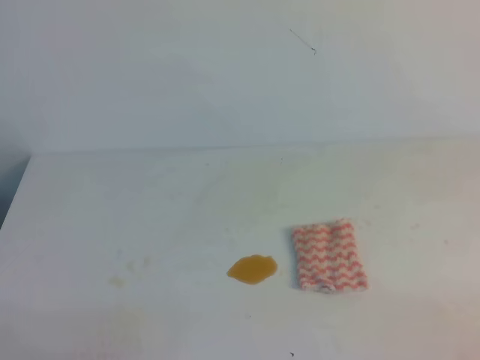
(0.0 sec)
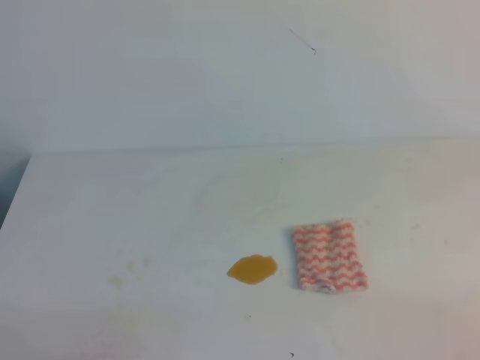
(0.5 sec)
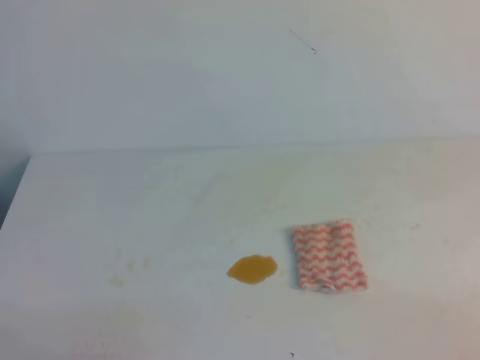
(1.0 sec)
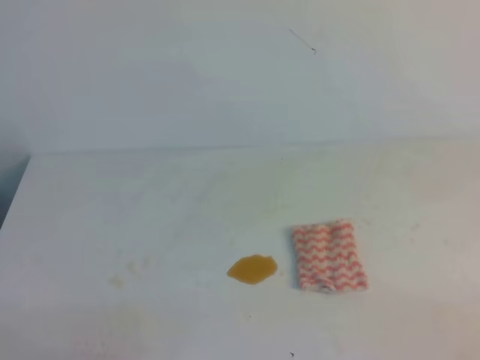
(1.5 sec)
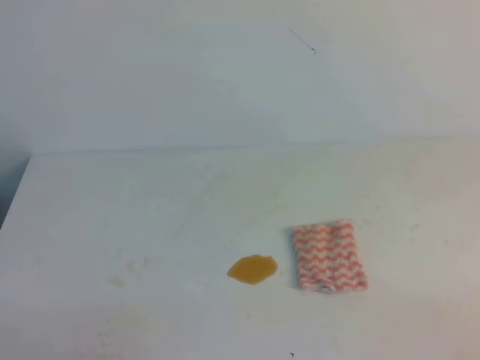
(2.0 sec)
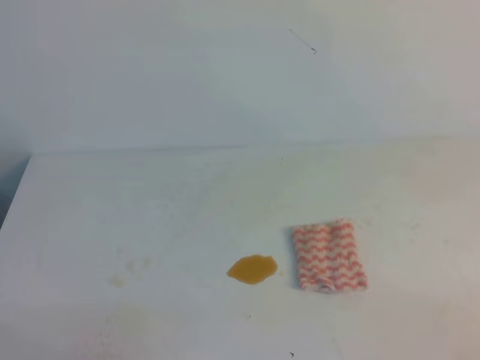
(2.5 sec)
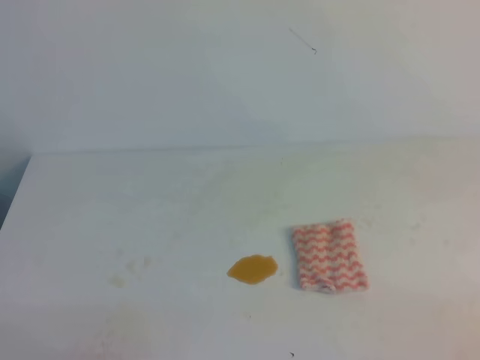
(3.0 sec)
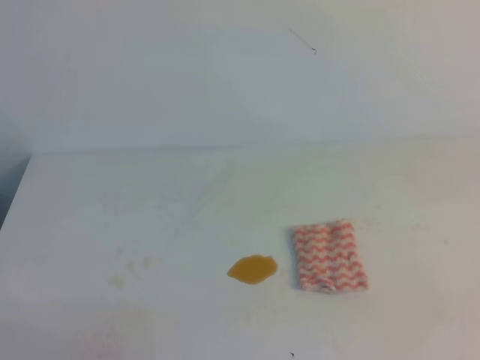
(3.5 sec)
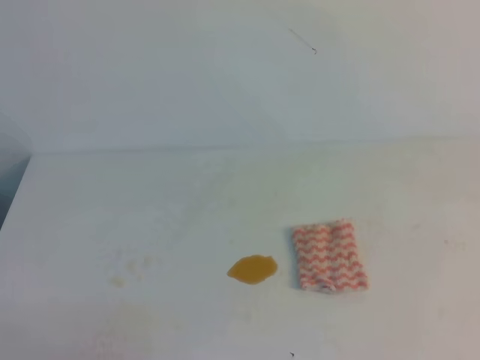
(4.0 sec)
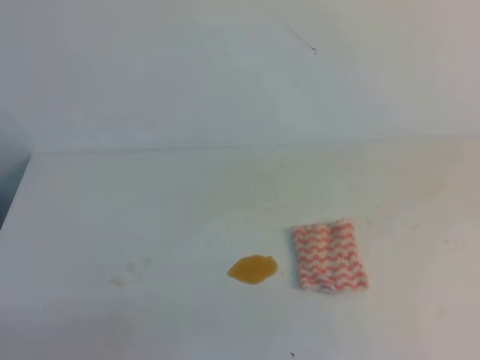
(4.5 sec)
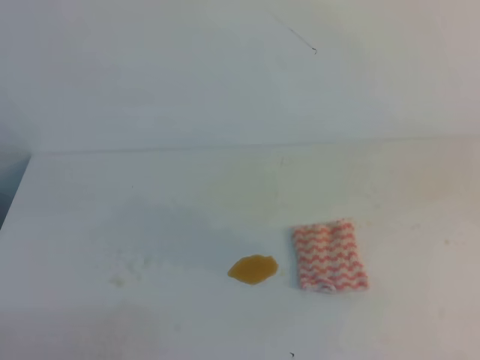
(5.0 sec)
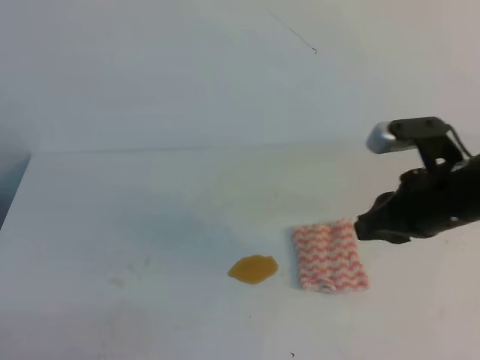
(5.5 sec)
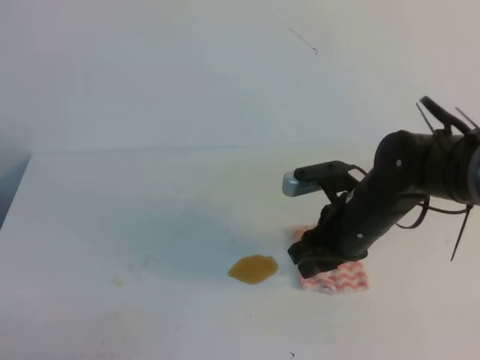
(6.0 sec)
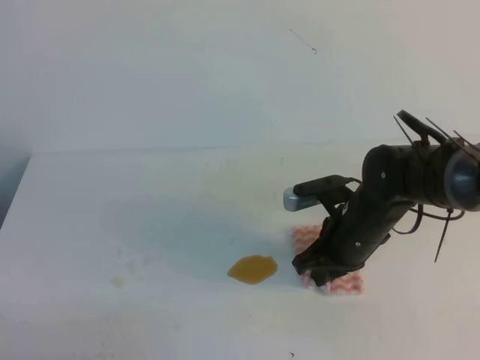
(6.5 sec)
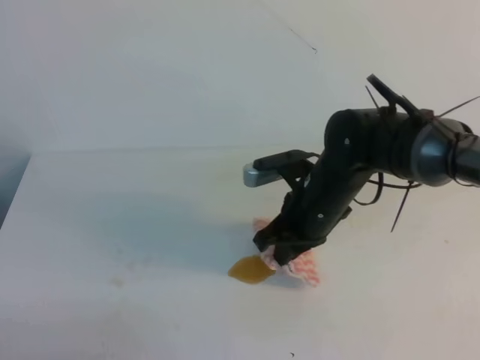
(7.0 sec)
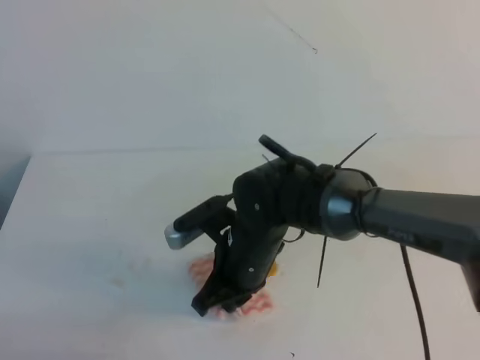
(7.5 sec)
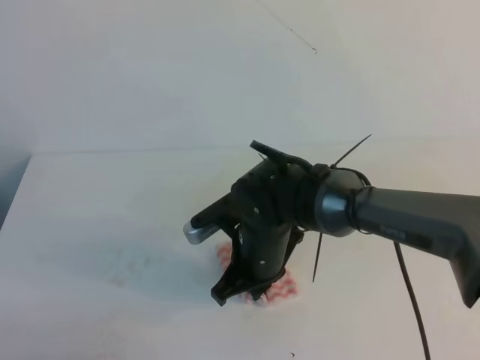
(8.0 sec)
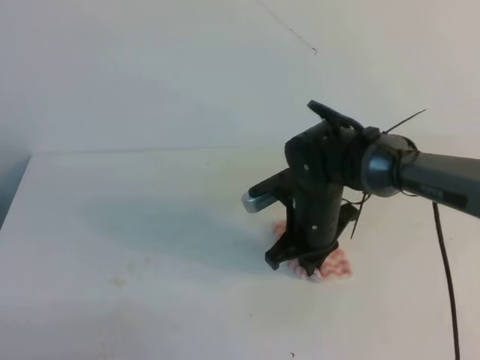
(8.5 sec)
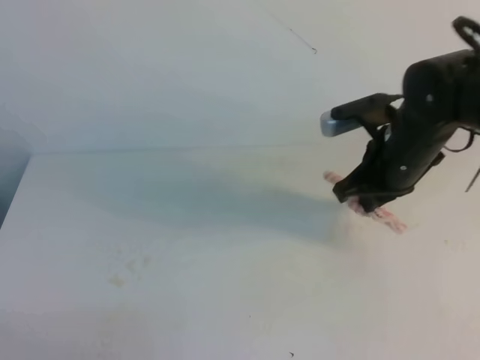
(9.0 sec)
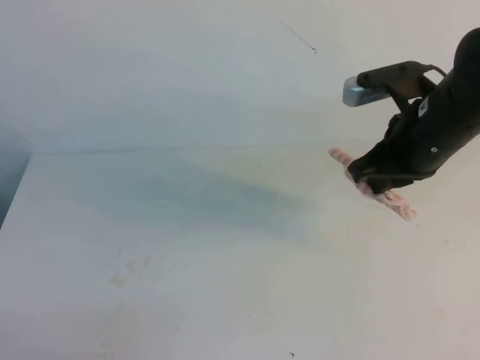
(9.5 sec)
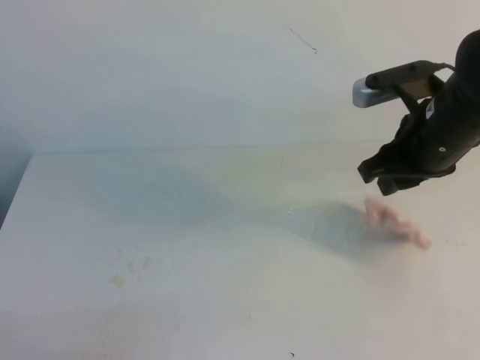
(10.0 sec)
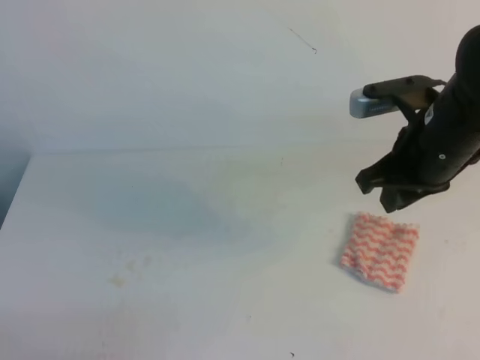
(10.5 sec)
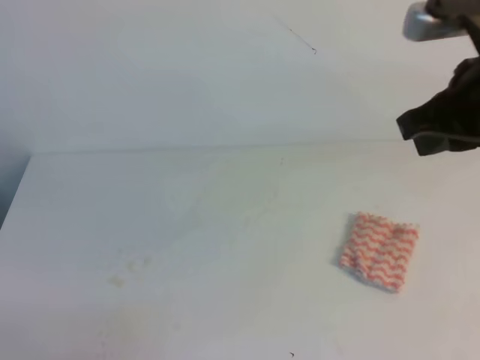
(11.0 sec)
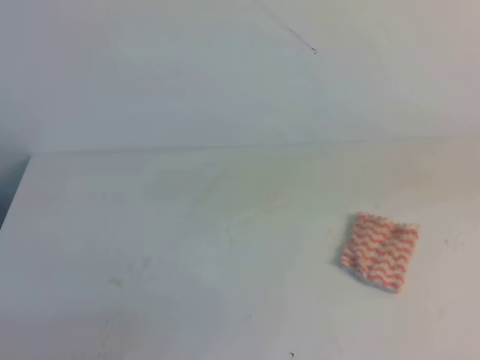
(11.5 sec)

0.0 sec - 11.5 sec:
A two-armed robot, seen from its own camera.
0.0 sec - 2.0 sec: The two grippers keep their place.
4.0 sec - 6.0 sec: The right gripper shifts about 40 cm forward, to the left and downward, and opens.
6.0 sec - 7.5 sec: The right gripper is displaced to the left by approximately 15 cm, and closes up.
7.5 sec - 9.5 sec: The right gripper travels to the right and upward by roughly 20 cm.
9.5 sec - 11.5 sec: The right gripper heads backward and upward, covering approximately 20 cm, and opens, then closes again.
